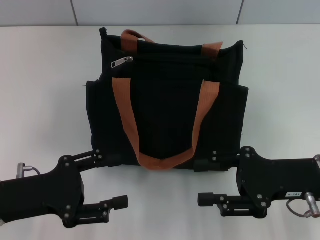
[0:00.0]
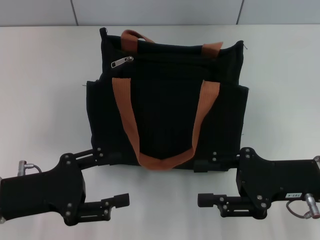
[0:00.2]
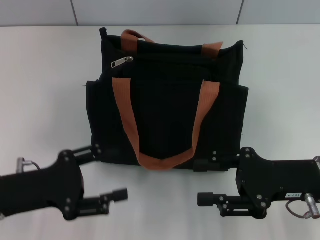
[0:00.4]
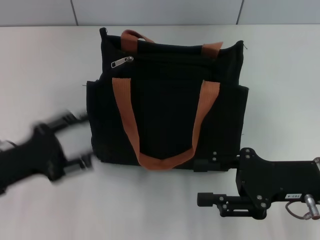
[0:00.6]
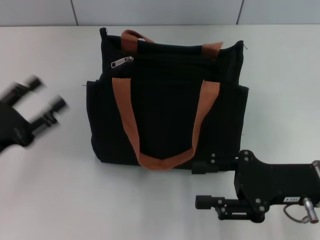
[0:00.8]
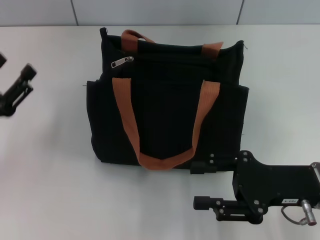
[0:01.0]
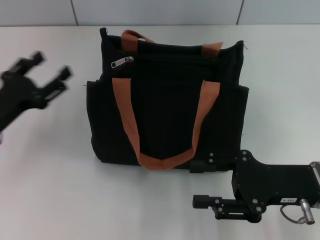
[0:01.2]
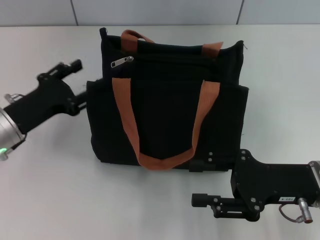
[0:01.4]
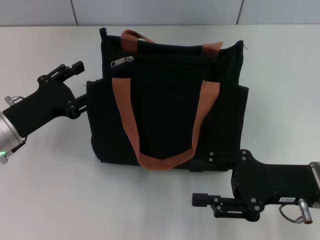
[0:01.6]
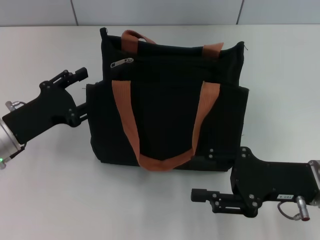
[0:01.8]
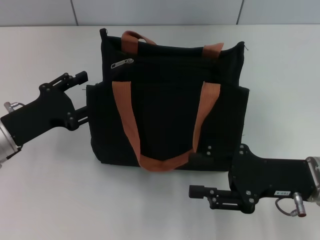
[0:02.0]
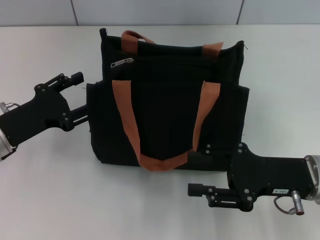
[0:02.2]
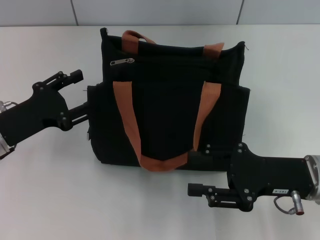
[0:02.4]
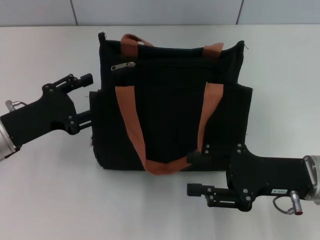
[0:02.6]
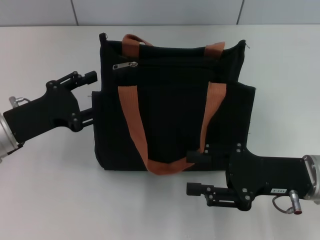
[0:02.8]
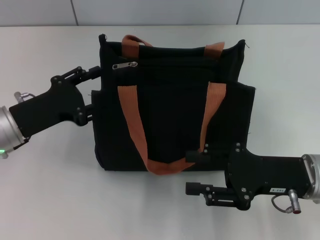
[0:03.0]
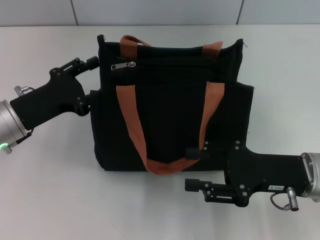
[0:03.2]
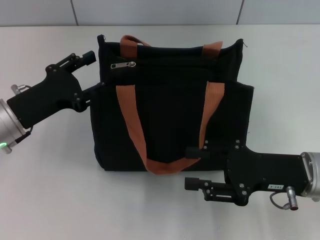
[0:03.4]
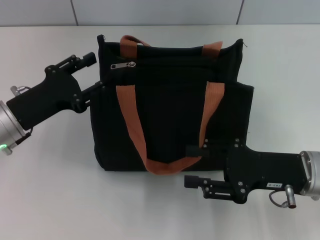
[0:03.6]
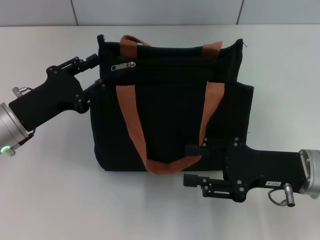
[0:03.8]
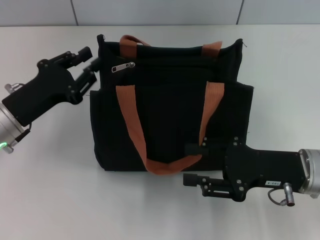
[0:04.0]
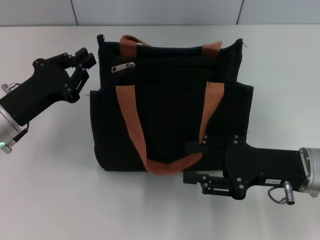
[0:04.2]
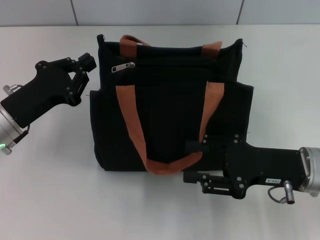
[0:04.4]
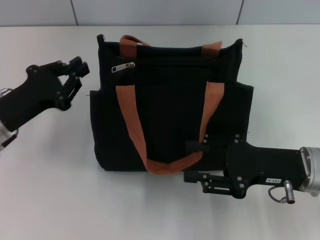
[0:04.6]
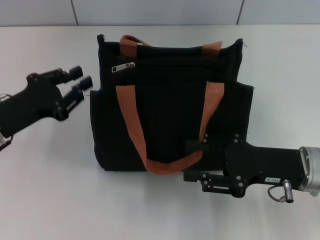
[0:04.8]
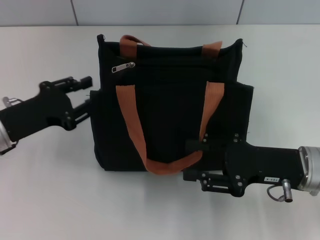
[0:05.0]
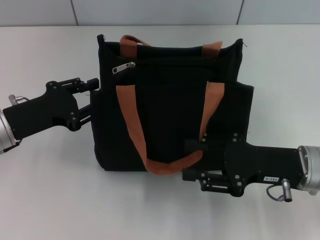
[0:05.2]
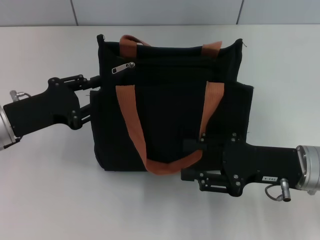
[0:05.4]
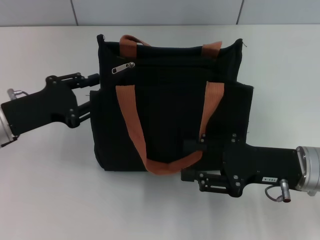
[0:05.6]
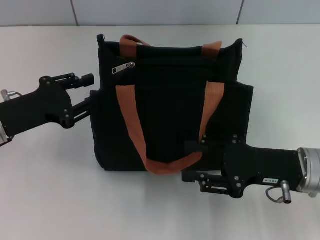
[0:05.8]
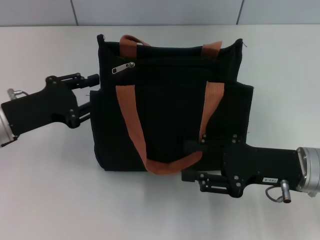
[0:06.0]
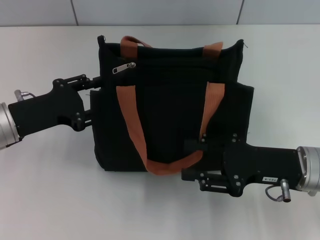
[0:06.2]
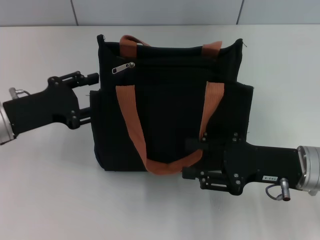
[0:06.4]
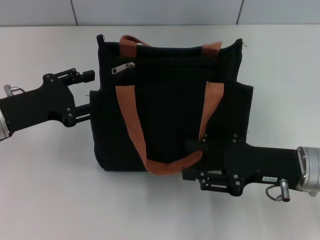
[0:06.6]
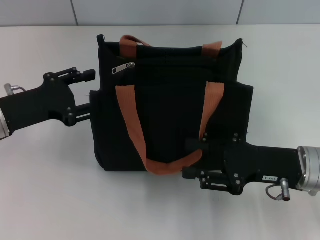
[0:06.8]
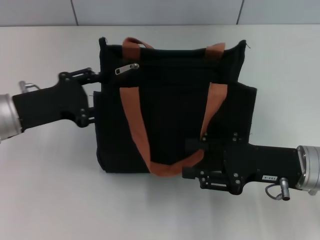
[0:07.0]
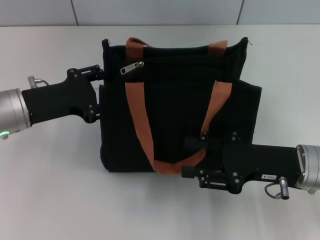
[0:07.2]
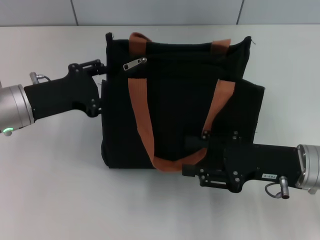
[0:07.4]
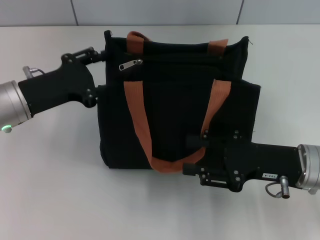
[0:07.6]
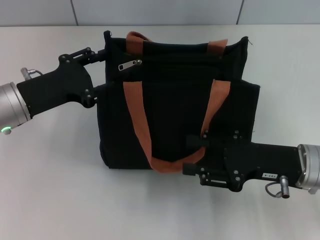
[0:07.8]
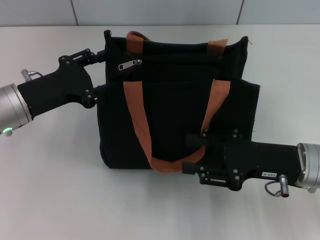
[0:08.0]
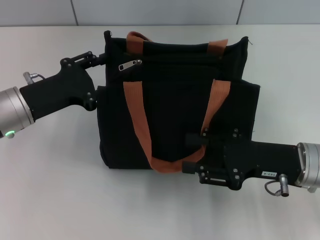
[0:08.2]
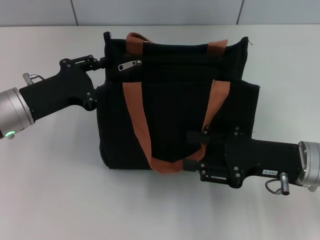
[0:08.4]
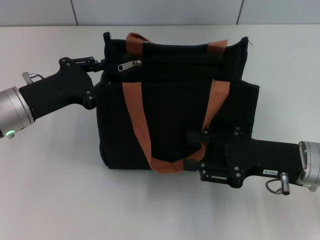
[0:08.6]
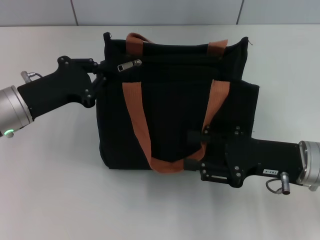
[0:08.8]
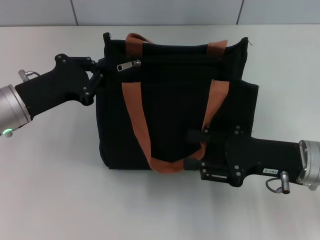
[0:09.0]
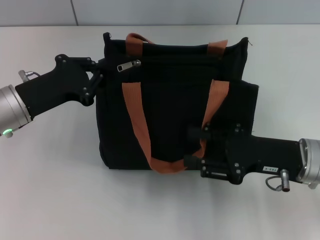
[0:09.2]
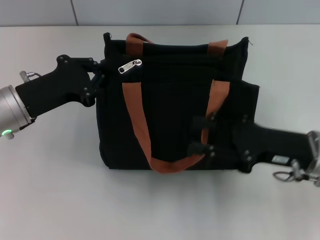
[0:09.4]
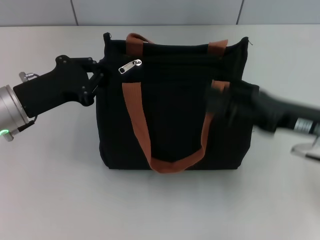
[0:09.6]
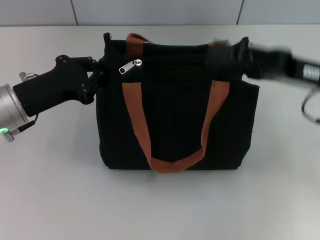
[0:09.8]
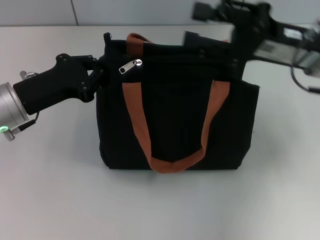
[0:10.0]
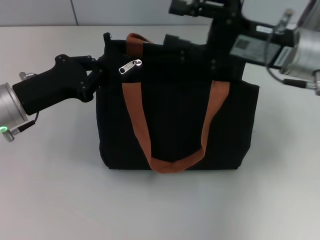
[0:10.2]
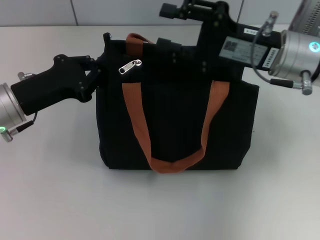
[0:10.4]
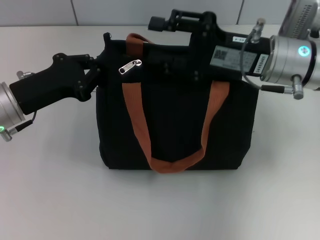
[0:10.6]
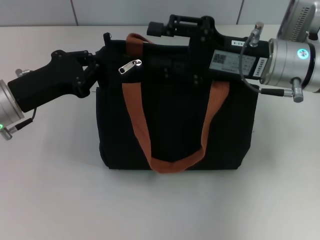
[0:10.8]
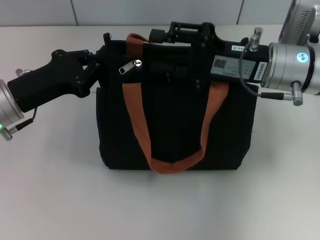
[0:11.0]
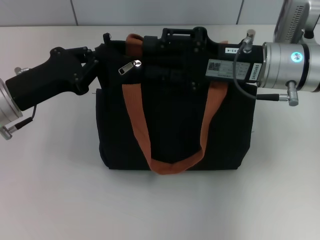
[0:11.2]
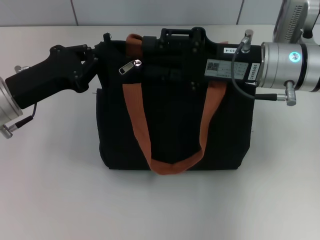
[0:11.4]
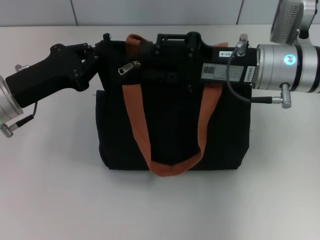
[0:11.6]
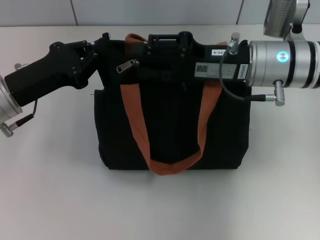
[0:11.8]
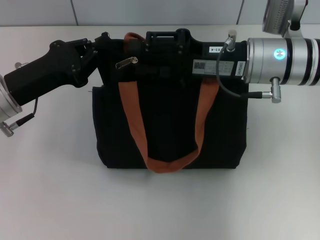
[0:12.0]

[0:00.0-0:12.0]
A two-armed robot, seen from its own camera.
0:00.0 to 0:01.6: The left gripper travels forward by some 10 cm.
0:01.6 to 0:03.0: There are only small adjustments of the grippers.
0:03.0 to 0:04.4: The left gripper closes.
0:04.4 to 0:06.0: The left gripper opens.
0:06.0 to 0:07.6: The grippers move only a little.
0:07.6 to 0:09.0: The left gripper closes up.
0:09.0 to 0:10.4: The right gripper shifts roughly 15 cm forward and upward.

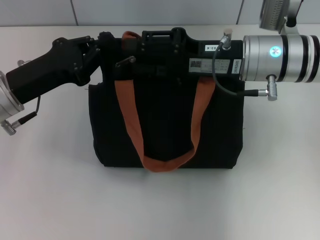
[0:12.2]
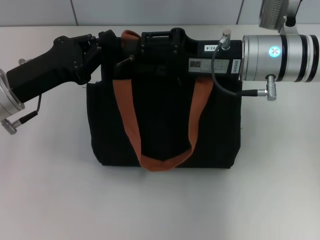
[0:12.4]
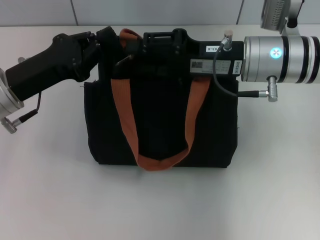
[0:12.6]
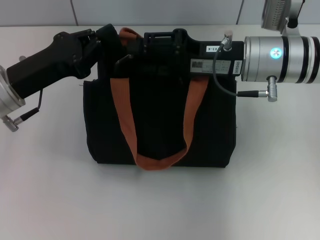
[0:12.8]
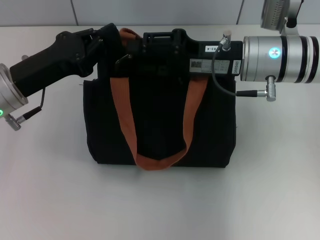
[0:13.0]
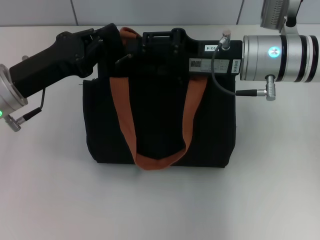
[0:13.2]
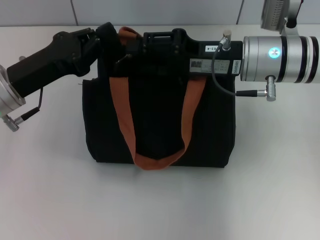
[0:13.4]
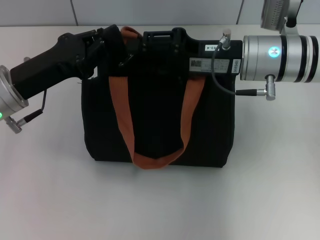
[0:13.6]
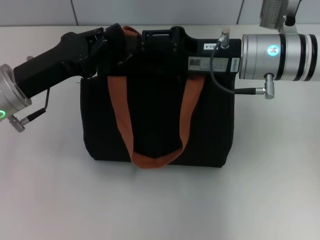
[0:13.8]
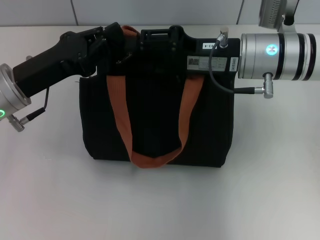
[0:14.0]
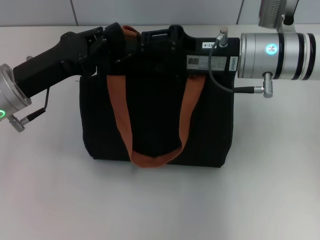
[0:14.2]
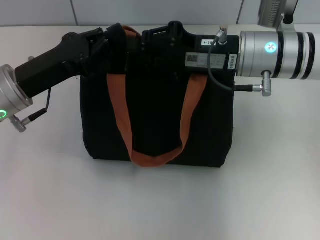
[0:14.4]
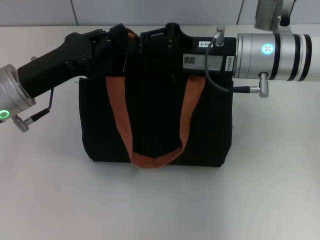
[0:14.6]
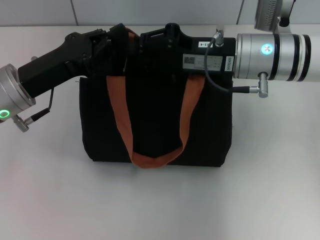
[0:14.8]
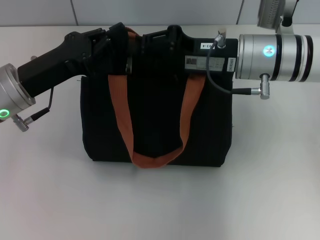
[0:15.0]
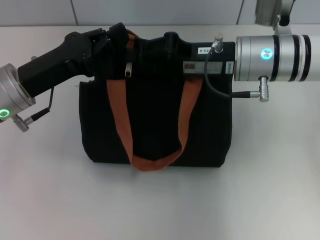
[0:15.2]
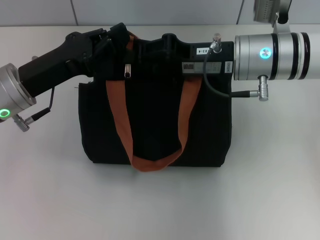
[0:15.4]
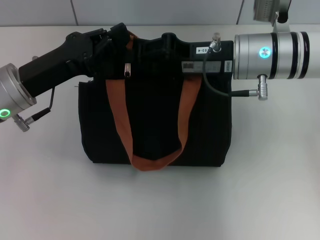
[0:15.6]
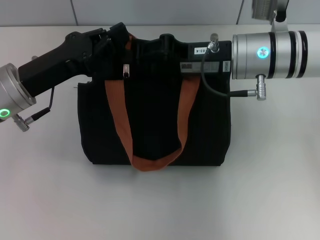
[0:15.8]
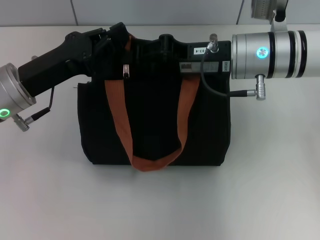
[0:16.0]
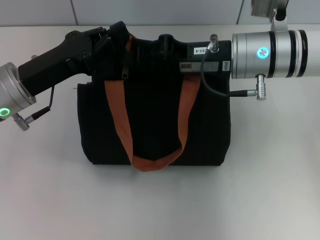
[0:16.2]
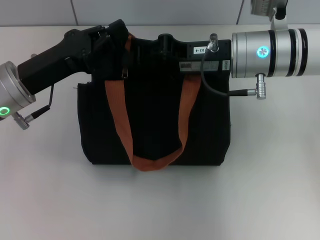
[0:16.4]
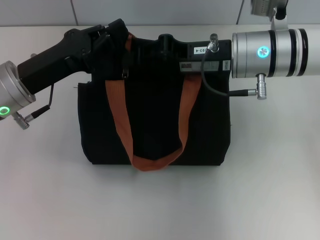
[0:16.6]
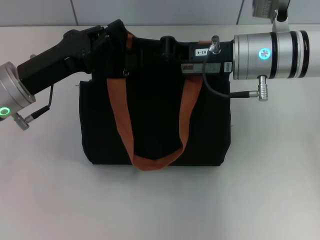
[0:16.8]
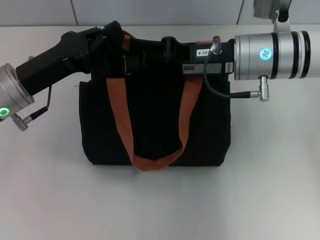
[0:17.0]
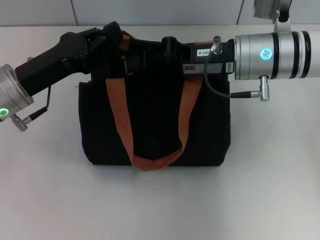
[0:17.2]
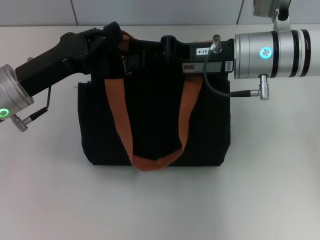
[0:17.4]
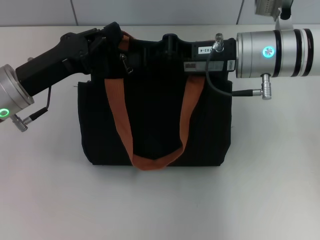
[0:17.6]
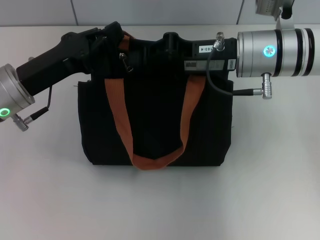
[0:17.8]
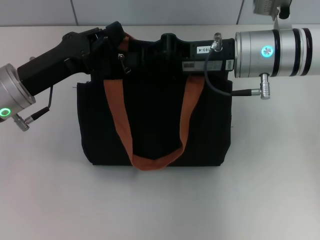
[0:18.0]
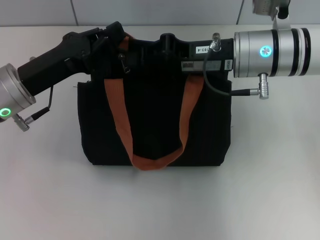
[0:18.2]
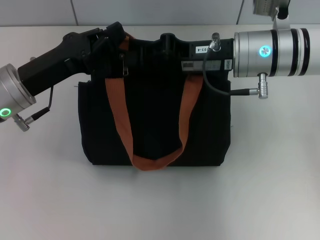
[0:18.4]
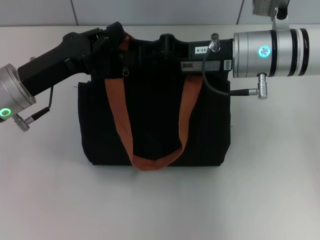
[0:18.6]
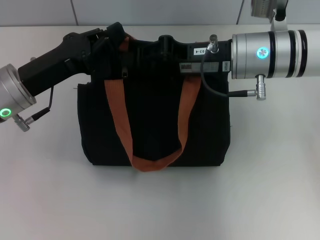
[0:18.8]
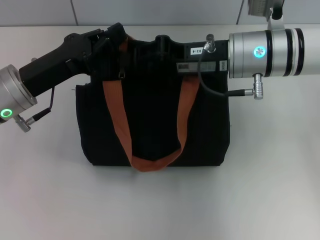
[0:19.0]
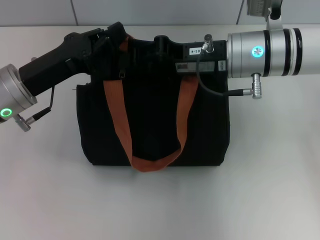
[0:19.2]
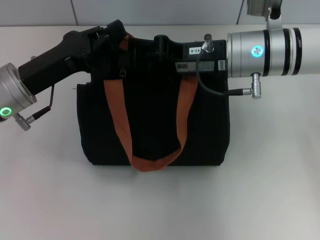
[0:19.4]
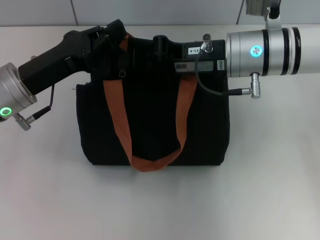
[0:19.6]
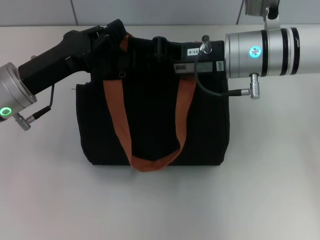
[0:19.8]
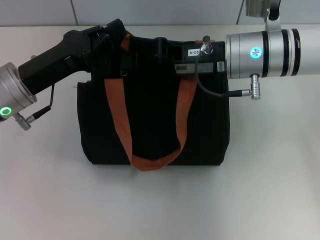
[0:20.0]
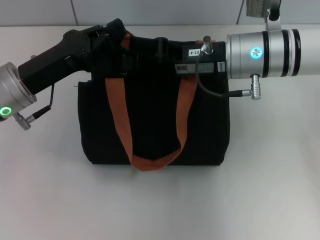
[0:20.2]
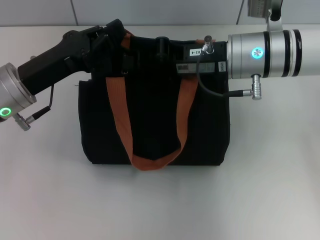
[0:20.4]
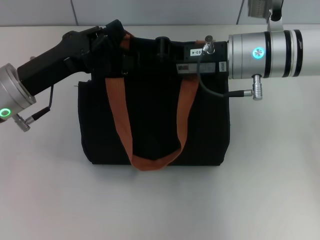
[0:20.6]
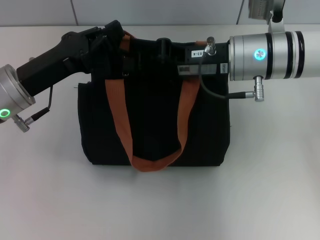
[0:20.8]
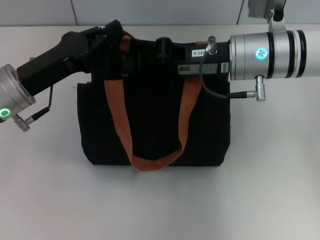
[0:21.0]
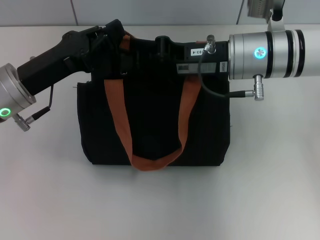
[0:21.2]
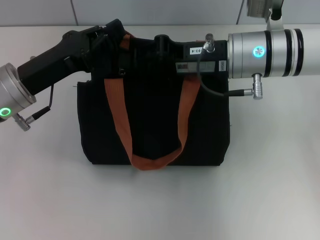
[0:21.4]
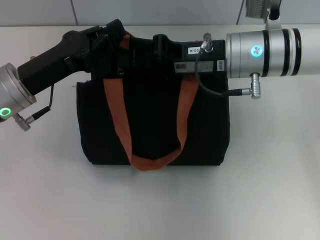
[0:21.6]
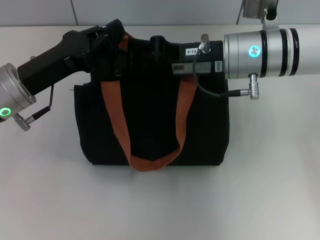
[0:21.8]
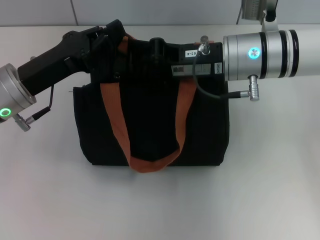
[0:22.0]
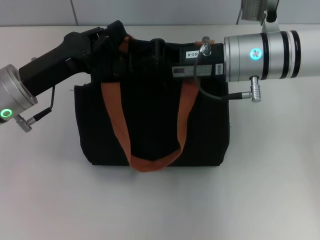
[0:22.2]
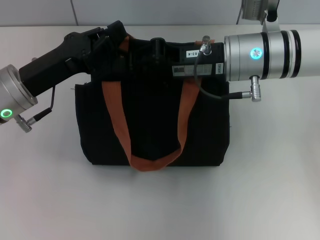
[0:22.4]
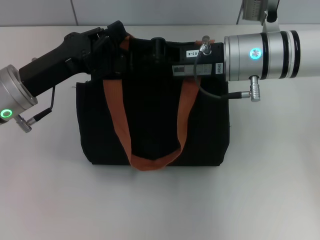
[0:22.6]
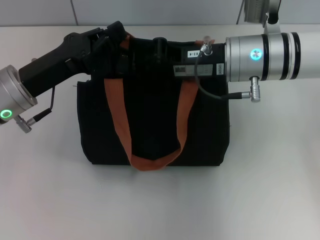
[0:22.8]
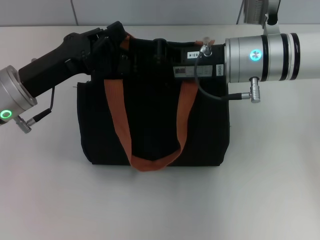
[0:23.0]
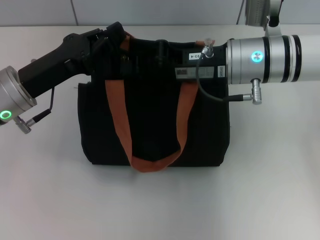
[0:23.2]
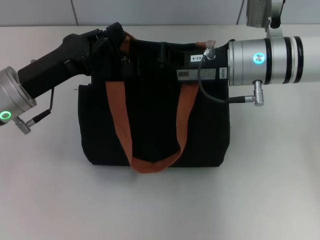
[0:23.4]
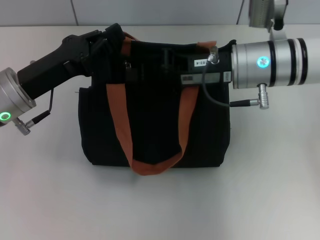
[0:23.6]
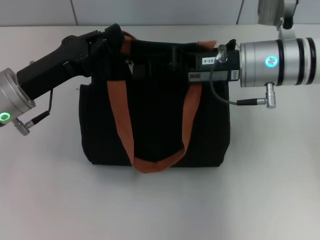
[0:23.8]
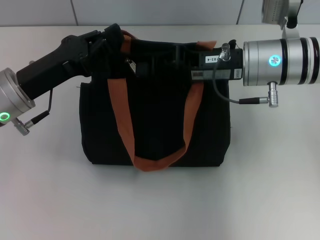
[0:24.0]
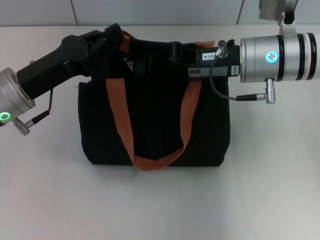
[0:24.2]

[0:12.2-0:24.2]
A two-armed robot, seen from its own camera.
0:12.2 to 0:13.8: The grippers make only small movements.
0:13.8 to 0:15.2: The right gripper closes its fingers.
0:15.2 to 0:16.6: There are only small adjustments of the grippers.
0:16.6 to 0:22.6: Neither gripper changes place.
0:22.6 to 0:24.2: The grippers make only small movements.
